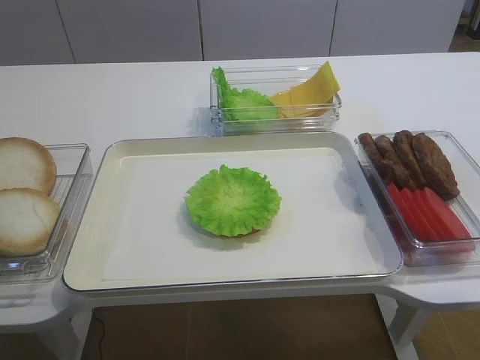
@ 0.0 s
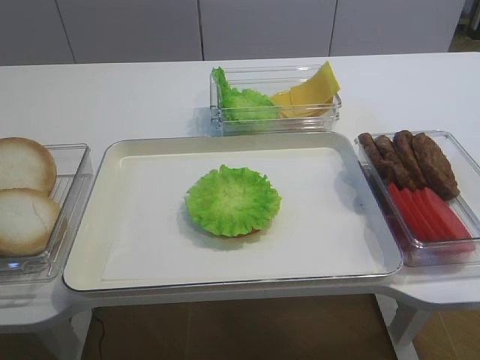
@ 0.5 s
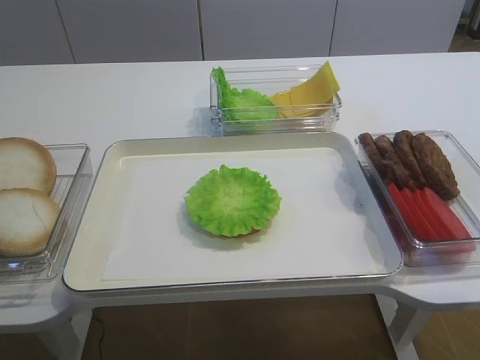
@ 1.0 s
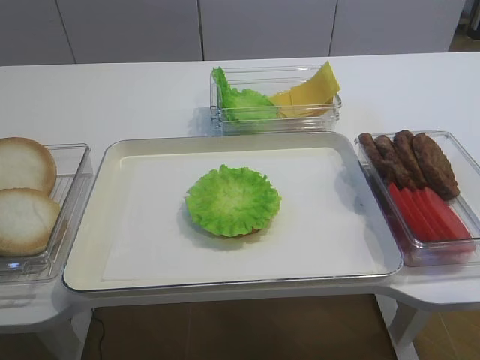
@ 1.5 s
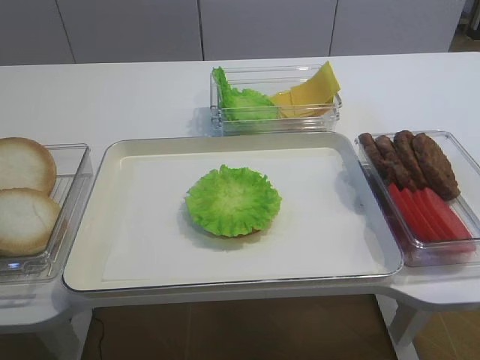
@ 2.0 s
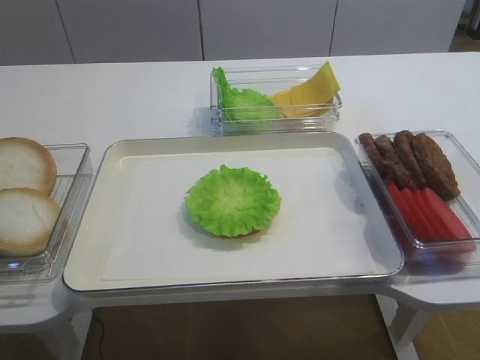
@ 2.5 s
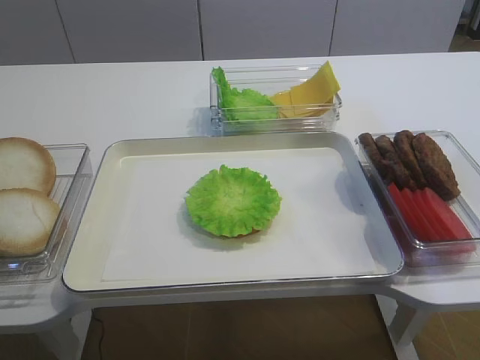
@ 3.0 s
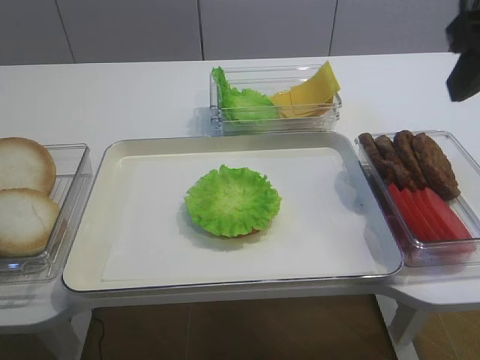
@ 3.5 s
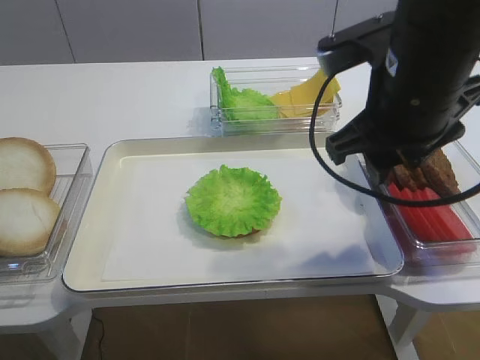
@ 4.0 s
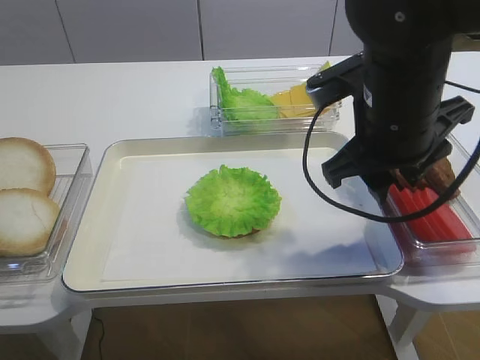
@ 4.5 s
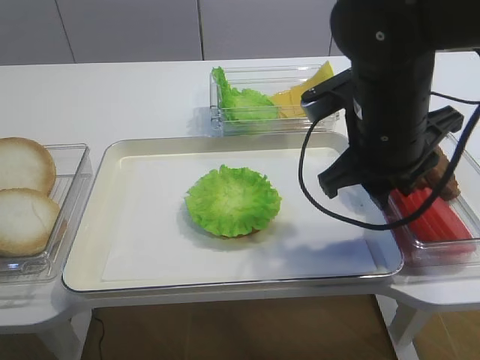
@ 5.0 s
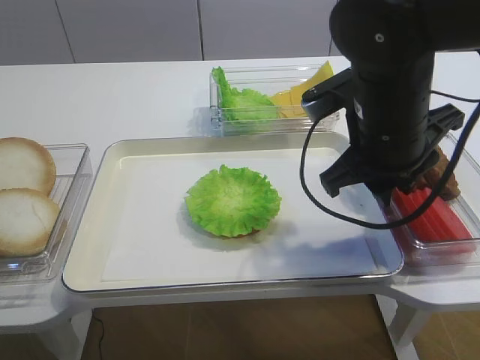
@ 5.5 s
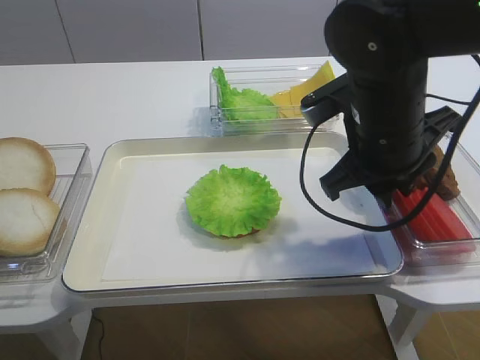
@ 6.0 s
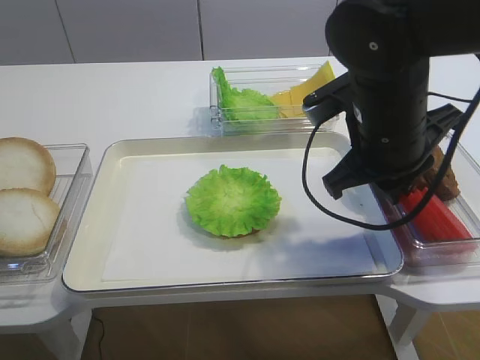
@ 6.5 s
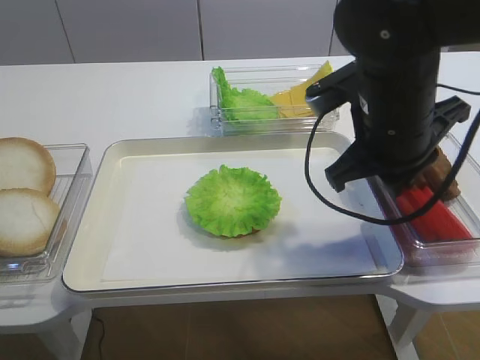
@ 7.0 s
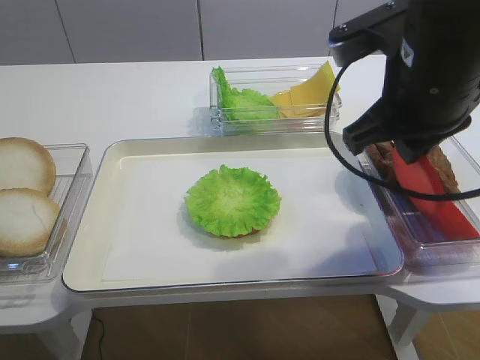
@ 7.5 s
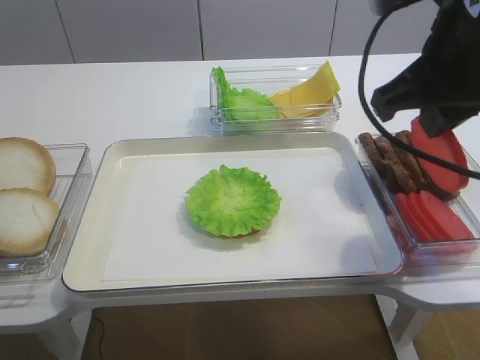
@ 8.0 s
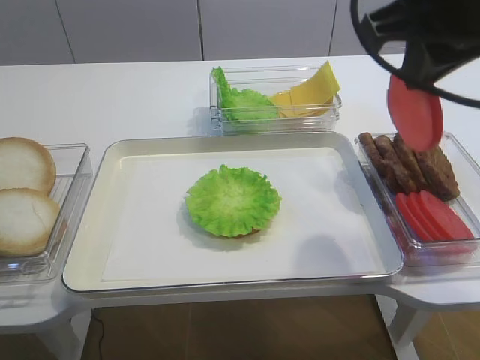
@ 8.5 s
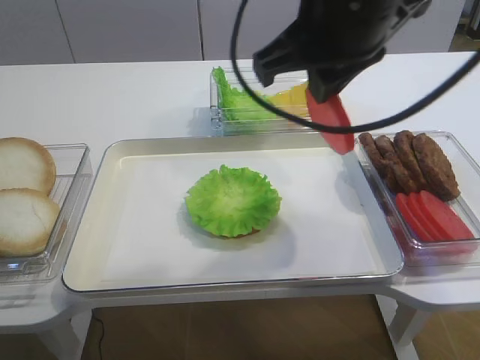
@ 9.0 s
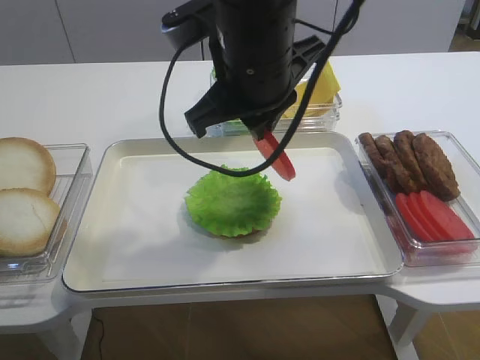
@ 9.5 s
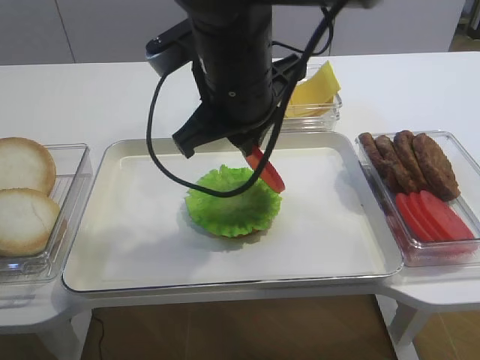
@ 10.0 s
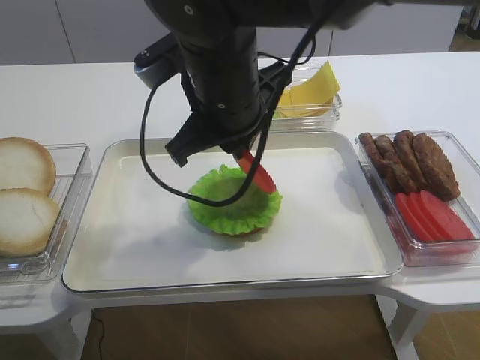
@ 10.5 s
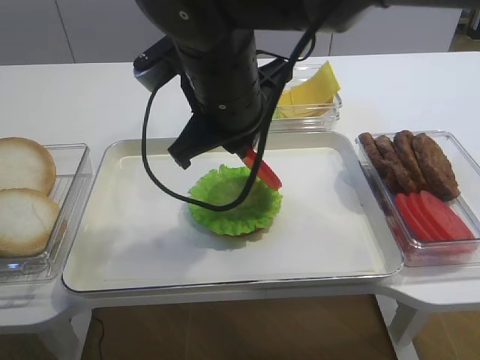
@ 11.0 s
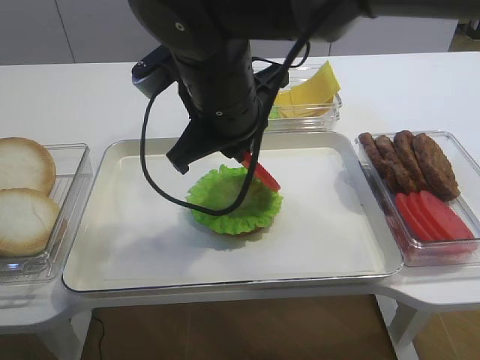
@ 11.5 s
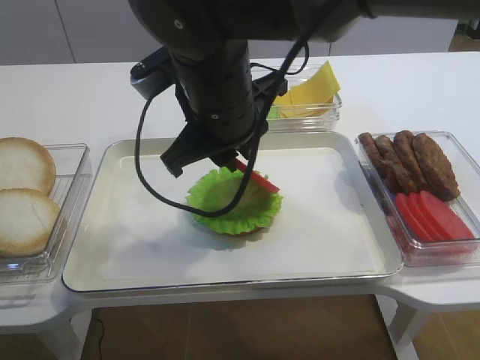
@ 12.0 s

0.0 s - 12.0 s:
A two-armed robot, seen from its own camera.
Step, 0.0 s - 7.0 s: Pick up the tomato slice with the right gripper.
2.0 s - 4.0 s: The right gripper goes about 30 cm forward and to the left.
4.0 s - 6.0 s: The right gripper shifts about 5 cm downward.
6.0 s - 8.0 s: The right gripper shifts about 10 cm upward, and closes its fingers.
8.0 s - 10.0 s: The right gripper shifts roughly 15 cm to the left.
10.0 s - 12.0 s: The grippers move only a little.

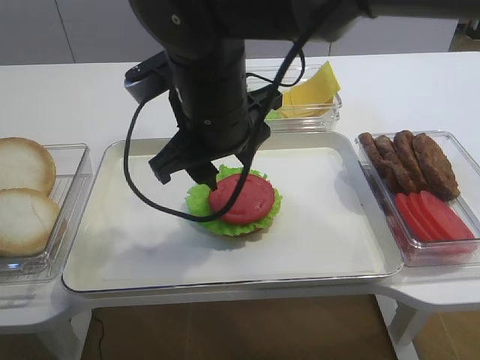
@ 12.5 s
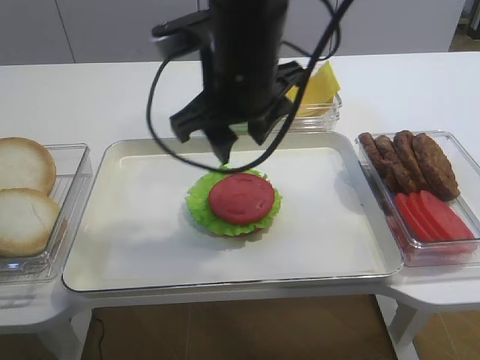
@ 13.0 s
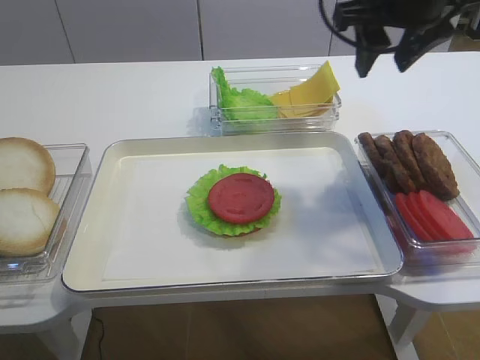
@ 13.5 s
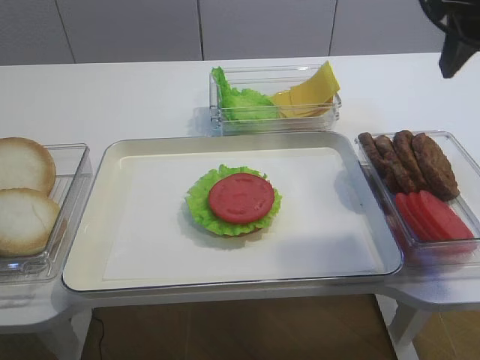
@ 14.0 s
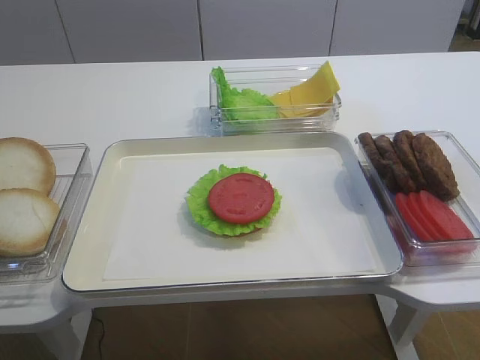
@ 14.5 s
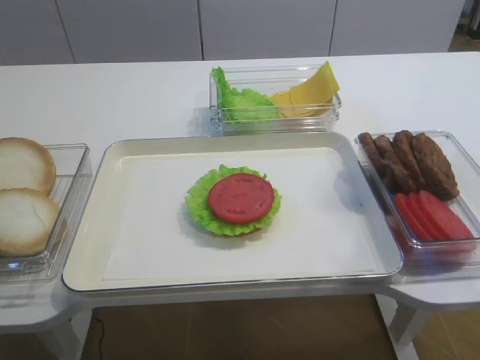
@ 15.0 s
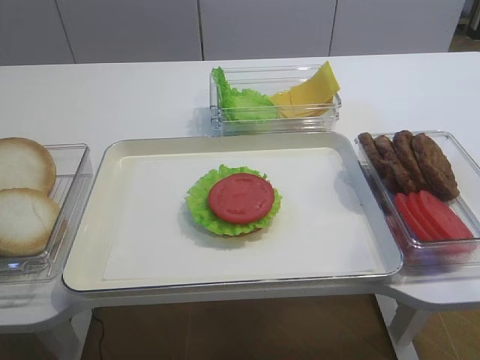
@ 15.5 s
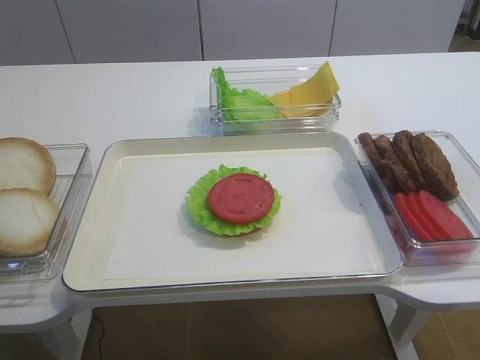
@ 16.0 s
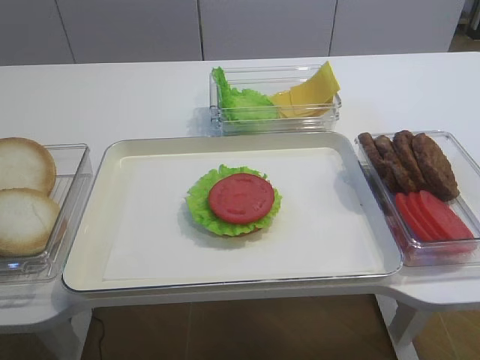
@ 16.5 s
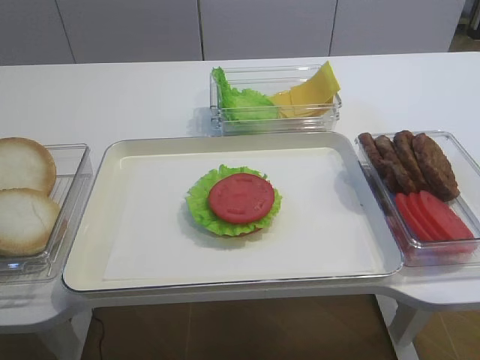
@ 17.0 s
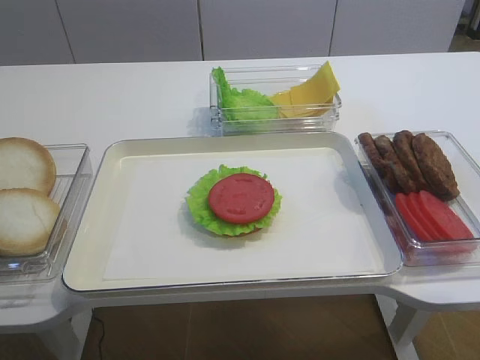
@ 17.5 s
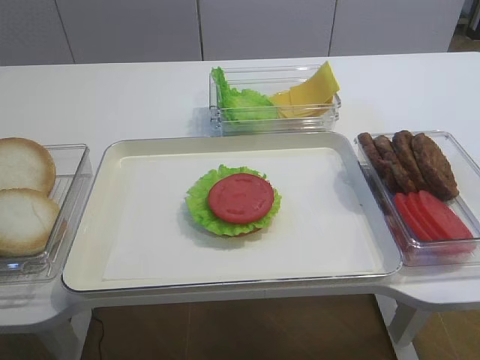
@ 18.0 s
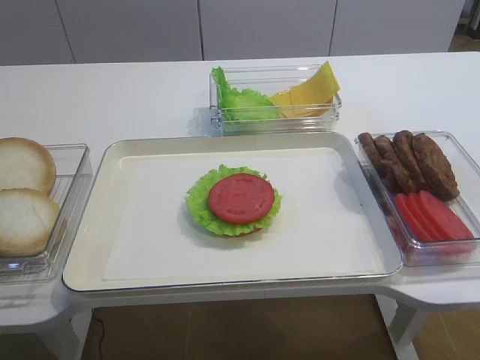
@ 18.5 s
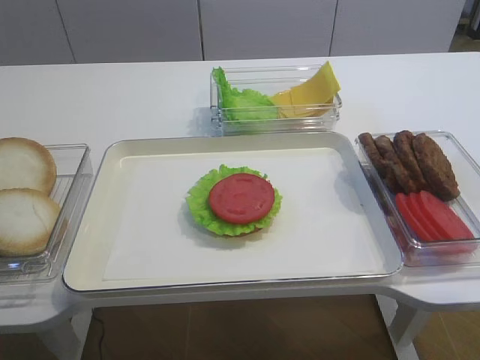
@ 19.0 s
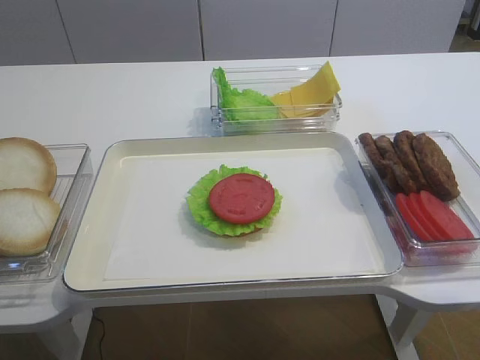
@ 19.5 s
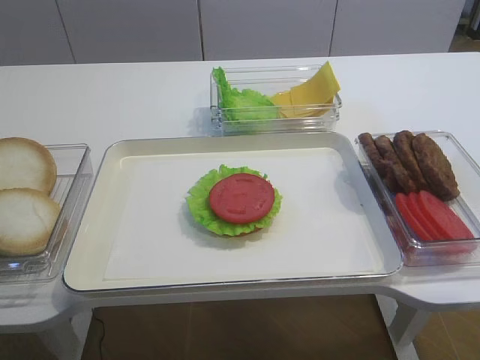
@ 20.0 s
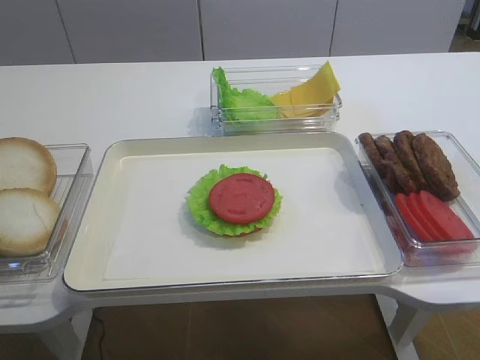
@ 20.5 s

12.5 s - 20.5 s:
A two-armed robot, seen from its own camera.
12.5 s - 14.5 s: The right gripper goes about 25 cm to the right.
14.5 s - 16.5 s: The right gripper goes about 20 cm backward and downward.
18.5 s - 20.5 s: Neither gripper changes place.

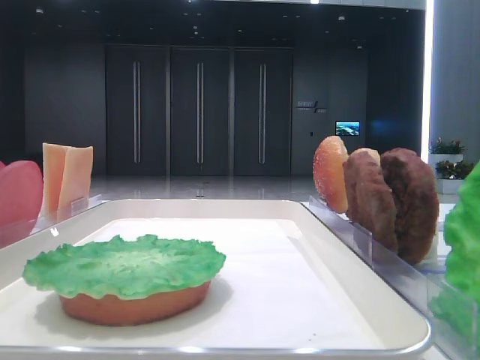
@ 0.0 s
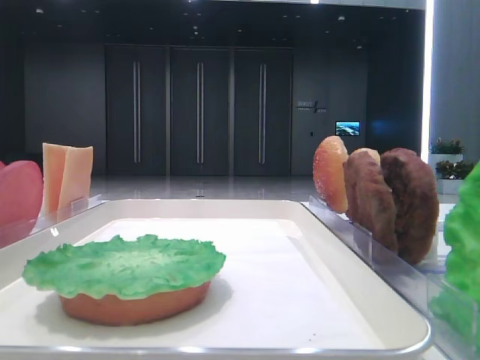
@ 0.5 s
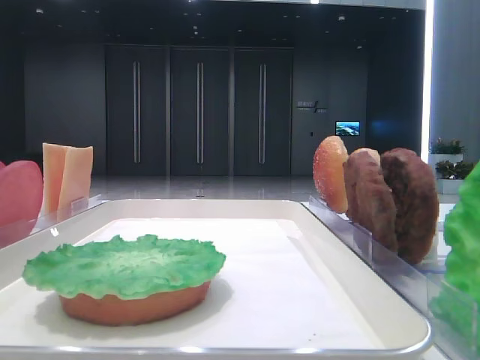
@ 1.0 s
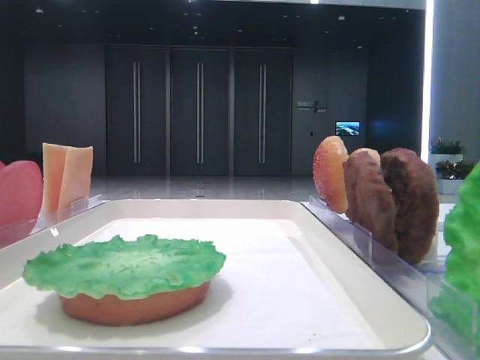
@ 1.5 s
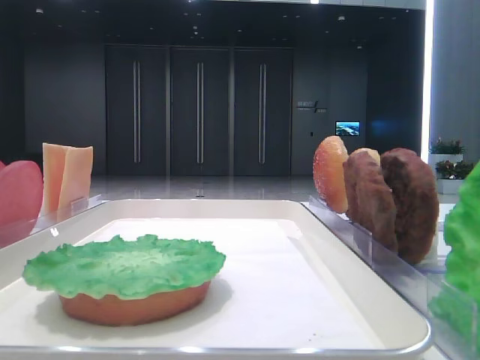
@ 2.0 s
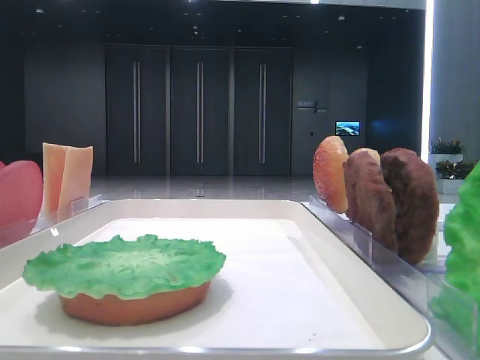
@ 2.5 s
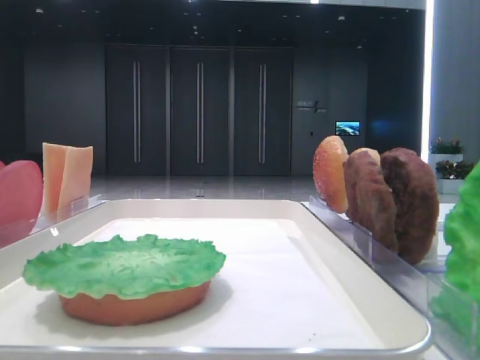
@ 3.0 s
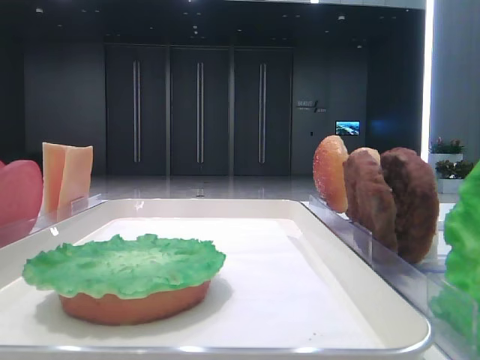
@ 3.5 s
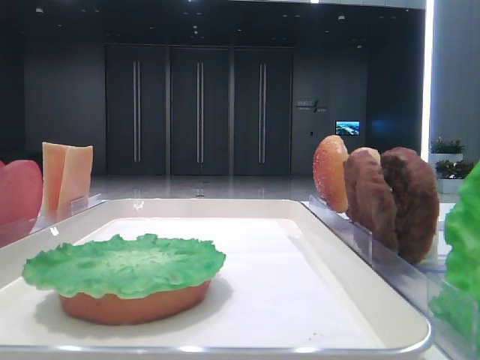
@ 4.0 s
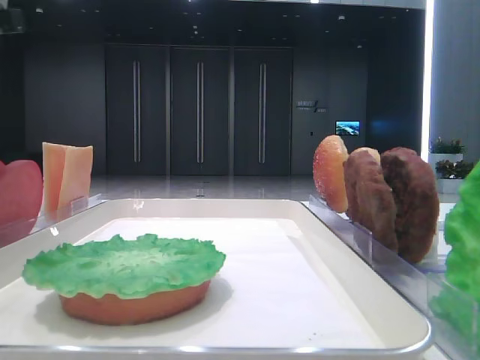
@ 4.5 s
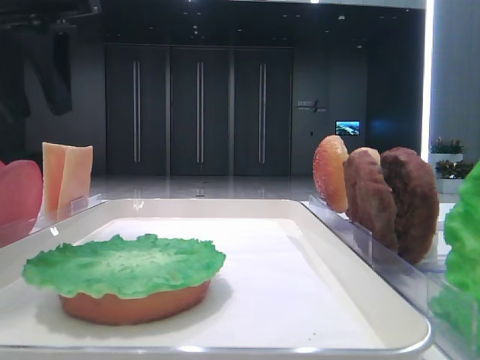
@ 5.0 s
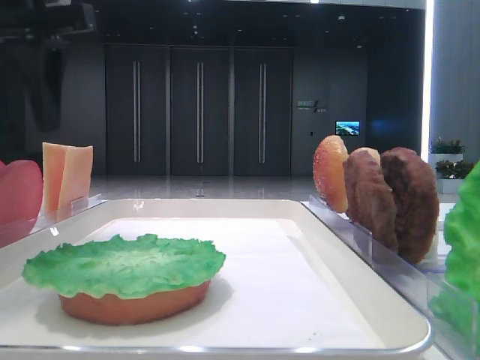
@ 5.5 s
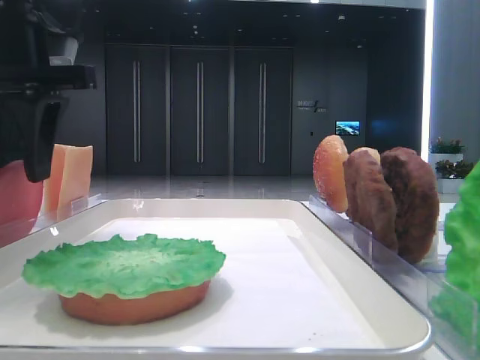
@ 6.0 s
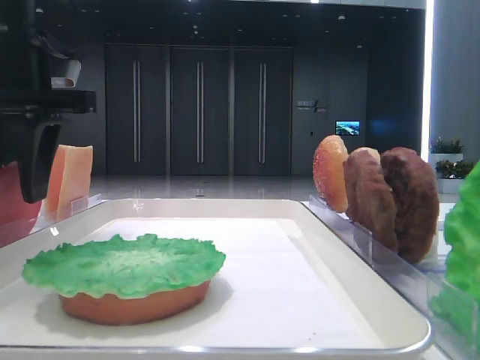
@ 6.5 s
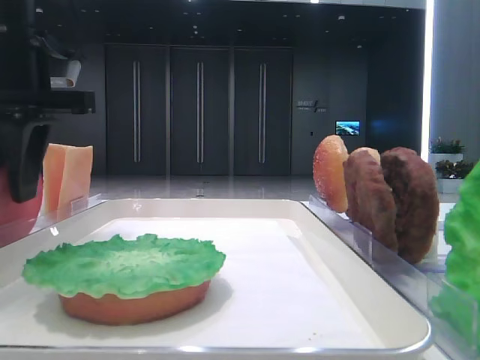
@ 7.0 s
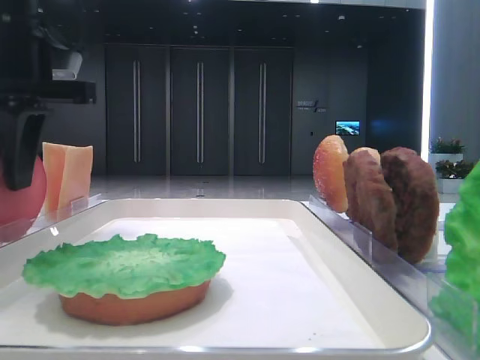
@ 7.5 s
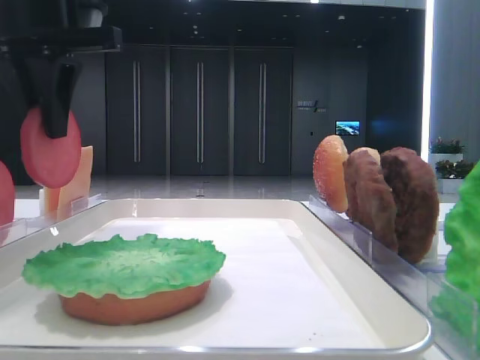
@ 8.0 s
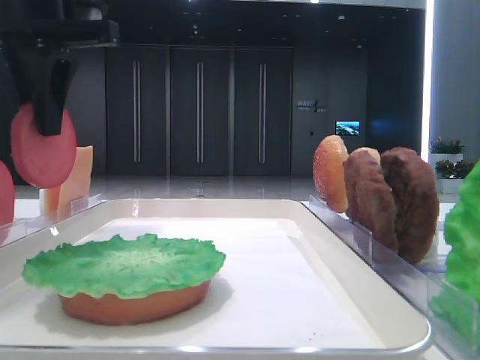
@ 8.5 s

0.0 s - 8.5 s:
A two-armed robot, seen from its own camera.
Step, 0.0 s - 7.0 s: Pick up the tomato slice with the left hand.
4.0 s - 6.5 s: The left gripper moves to the right and downward, about 15 cm.
6.5 s - 8.5 s: The left gripper heads upward, covering about 5 cm, and closes up.
